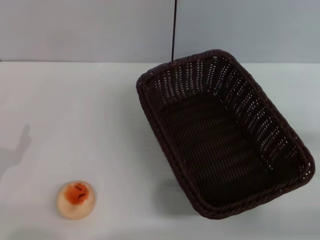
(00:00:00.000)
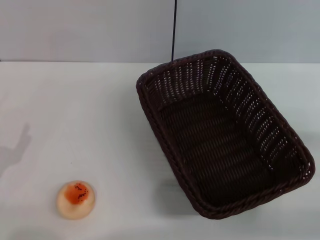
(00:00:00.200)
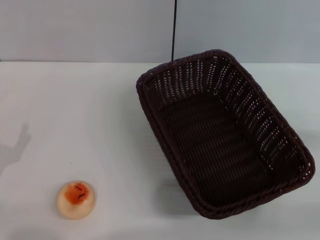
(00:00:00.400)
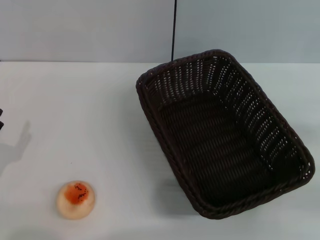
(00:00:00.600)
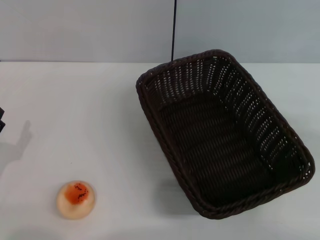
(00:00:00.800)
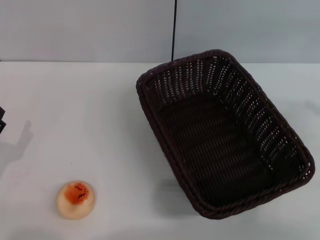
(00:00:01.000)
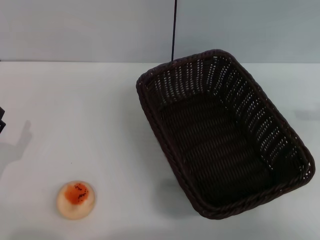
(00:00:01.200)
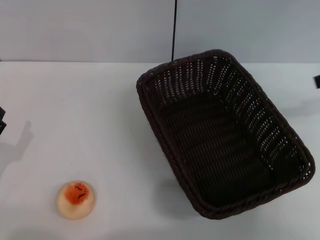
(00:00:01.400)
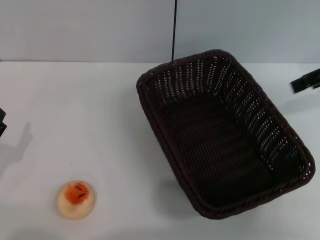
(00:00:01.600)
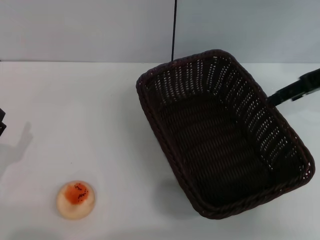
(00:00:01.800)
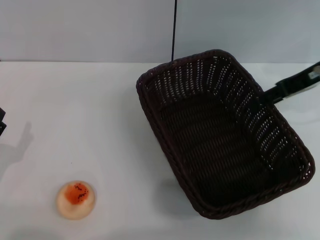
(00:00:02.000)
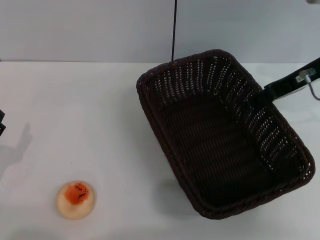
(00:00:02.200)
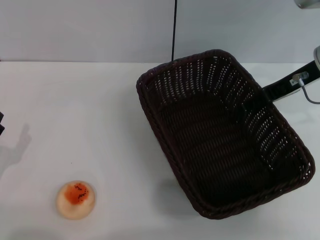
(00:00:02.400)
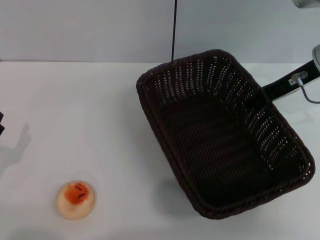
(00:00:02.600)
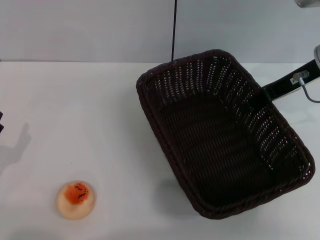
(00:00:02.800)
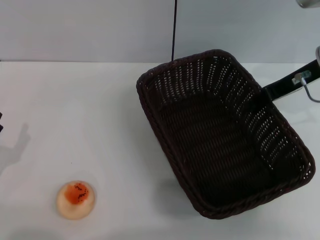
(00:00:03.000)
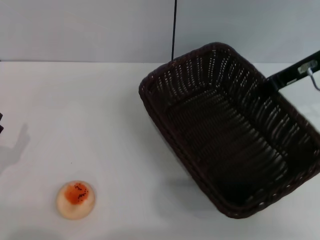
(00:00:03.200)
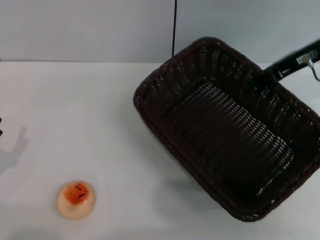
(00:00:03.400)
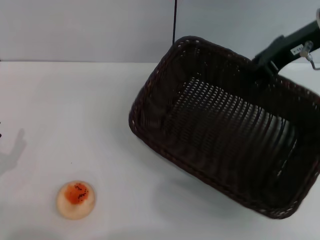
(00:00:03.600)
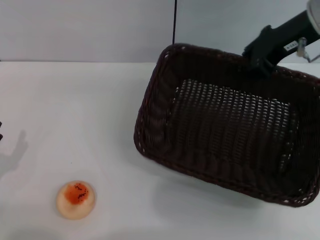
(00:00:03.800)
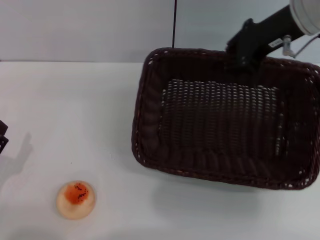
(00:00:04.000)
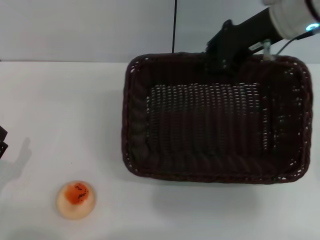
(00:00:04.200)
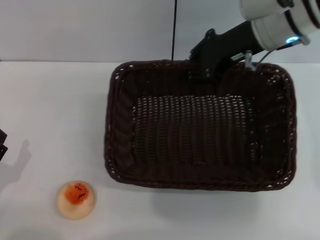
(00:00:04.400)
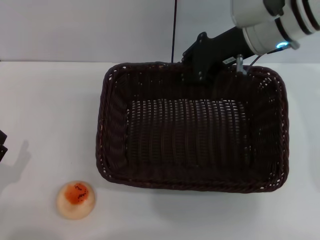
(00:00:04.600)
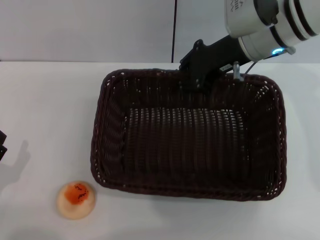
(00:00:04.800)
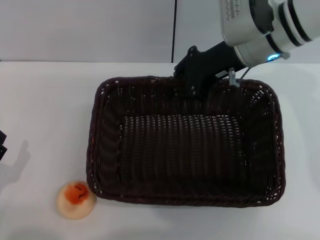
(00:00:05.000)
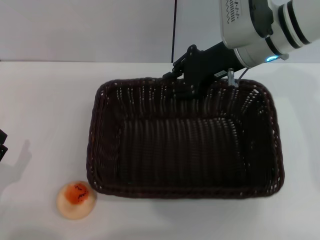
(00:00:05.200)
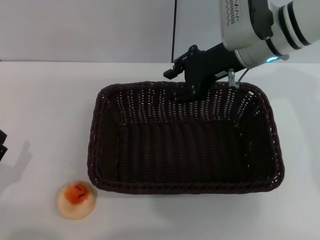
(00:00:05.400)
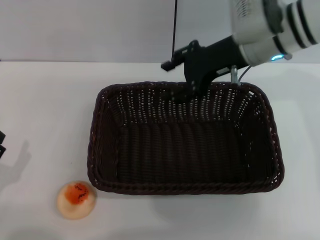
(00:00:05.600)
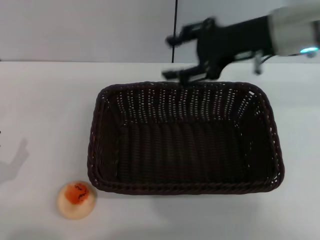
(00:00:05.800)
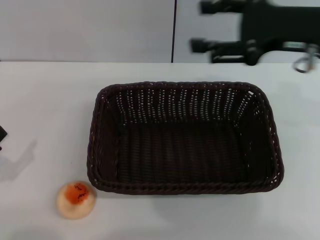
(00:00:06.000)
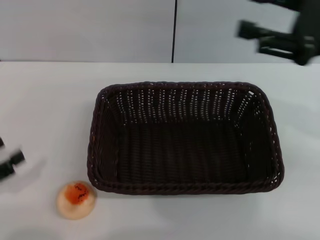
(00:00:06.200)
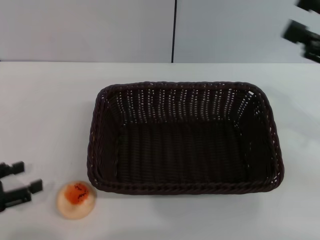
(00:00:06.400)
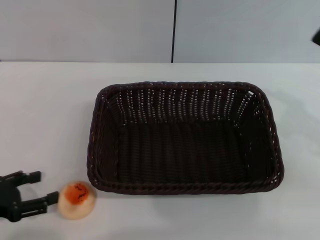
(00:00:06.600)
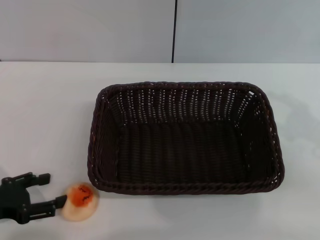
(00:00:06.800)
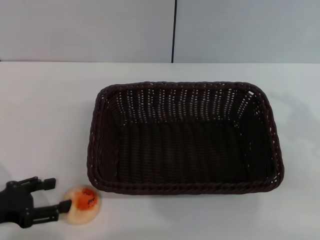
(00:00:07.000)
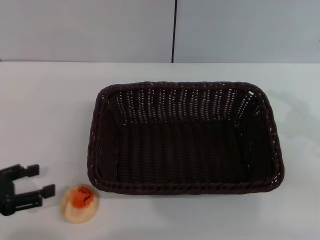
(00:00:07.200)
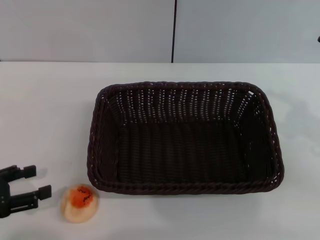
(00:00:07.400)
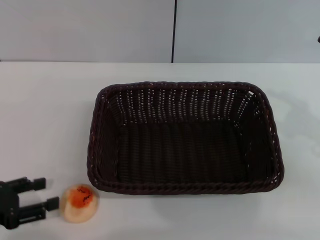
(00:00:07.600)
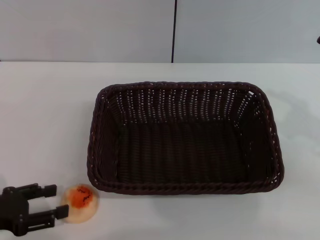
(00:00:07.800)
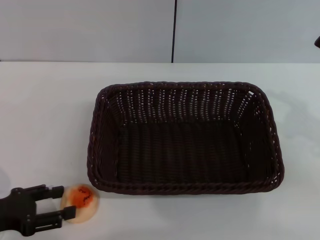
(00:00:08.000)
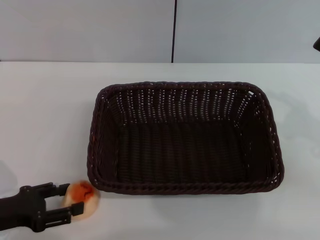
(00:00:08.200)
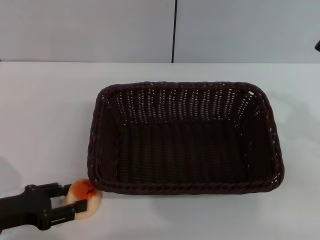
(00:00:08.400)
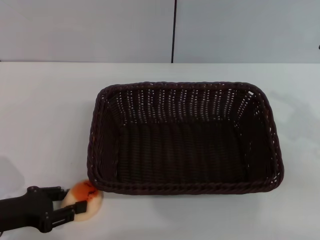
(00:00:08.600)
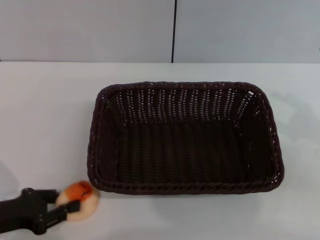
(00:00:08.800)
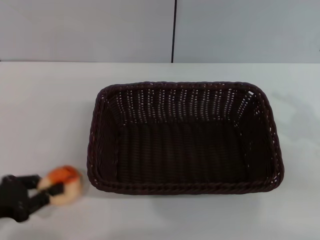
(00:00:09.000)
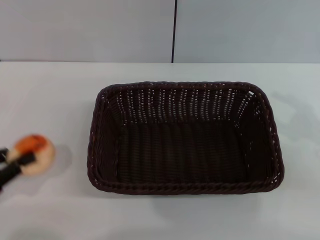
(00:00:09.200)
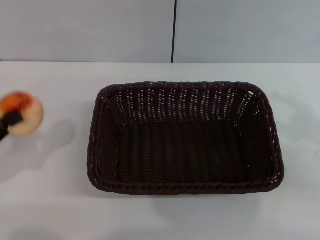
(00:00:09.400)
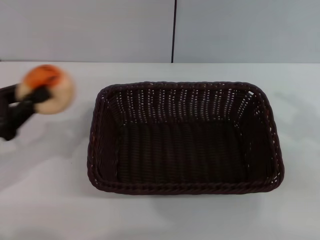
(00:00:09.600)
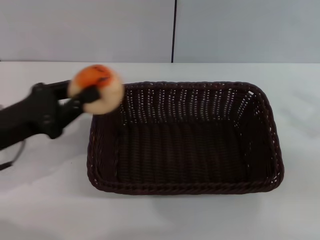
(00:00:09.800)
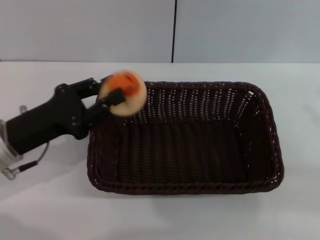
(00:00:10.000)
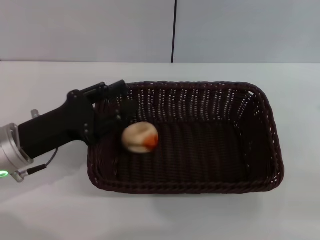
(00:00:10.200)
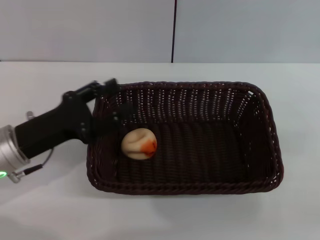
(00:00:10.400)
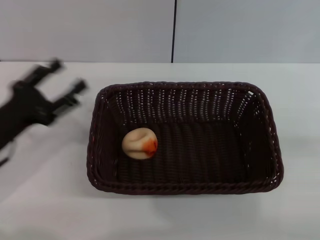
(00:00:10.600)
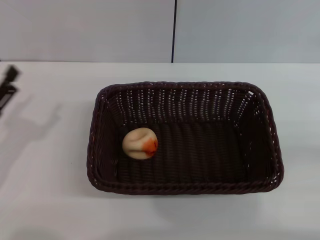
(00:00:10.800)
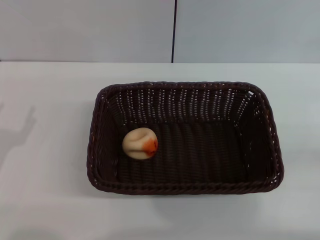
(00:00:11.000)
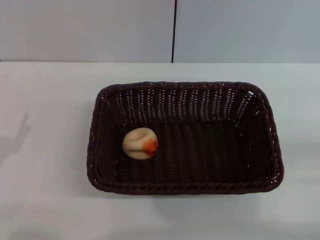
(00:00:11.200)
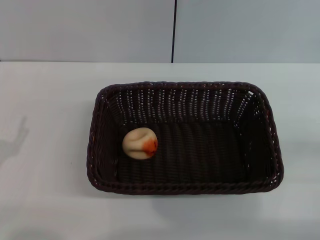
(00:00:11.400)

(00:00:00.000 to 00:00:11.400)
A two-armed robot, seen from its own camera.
Step, 00:00:00.000 - 00:00:05.600: Move the basket to the center of view with the right gripper.
Step, 00:00:05.800 - 00:00:09.000: Pick up the egg yolk pastry with the left gripper.
Step, 00:00:09.200 - 00:00:10.200: Place the egg yolk pastry into the basket with the left gripper.
00:00:00.000 - 00:00:01.400: The right gripper goes roughly 25 cm upward and forward.
00:00:01.400 - 00:00:02.800: The right gripper shifts about 15 cm to the left and downward.
00:00:02.800 - 00:00:04.200: The right gripper goes approximately 5 cm to the left, and closes up.
00:00:04.200 - 00:00:05.600: The right gripper opens.
00:00:05.600 - 00:00:07.200: The right gripper heads to the right and backward, covering some 25 cm, and opens its fingers. Meanwhile the left gripper shifts roughly 10 cm upward and forward.
00:00:07.200 - 00:00:08.600: The left gripper shifts by about 5 cm.
00:00:08.600 - 00:00:10.000: The right gripper shifts by approximately 5 cm; the left gripper moves forward, to the right and upward, about 10 cm, and closes up.
00:00:10.000 - 00:00:11.400: The left gripper shifts about 15 cm backward, to the left and downward, and opens its fingers. Meanwhile the right gripper travels downward by roughly 10 cm.

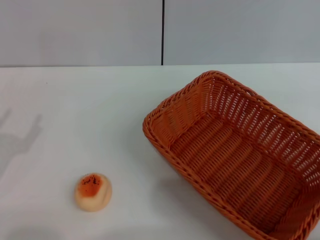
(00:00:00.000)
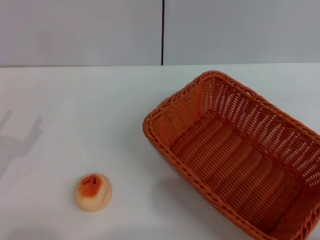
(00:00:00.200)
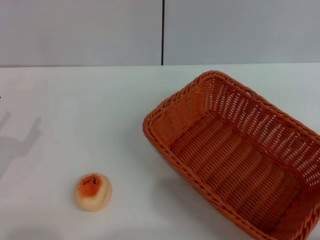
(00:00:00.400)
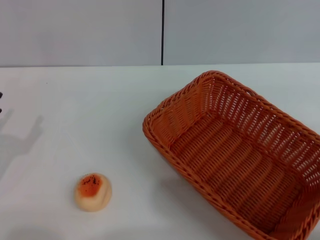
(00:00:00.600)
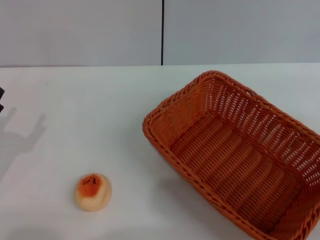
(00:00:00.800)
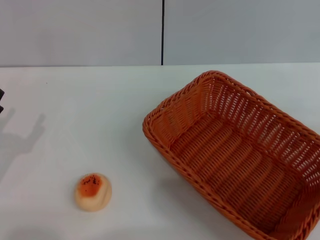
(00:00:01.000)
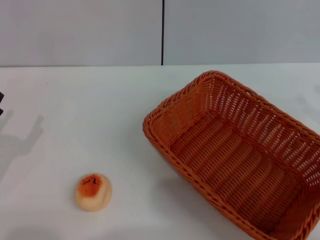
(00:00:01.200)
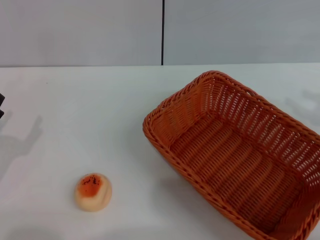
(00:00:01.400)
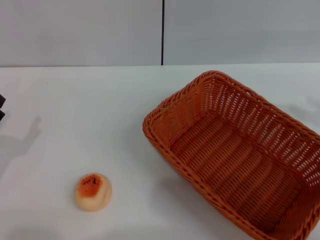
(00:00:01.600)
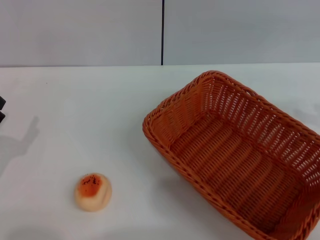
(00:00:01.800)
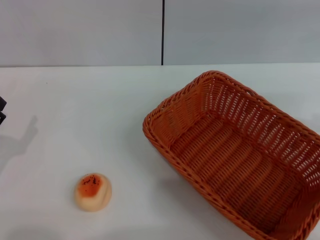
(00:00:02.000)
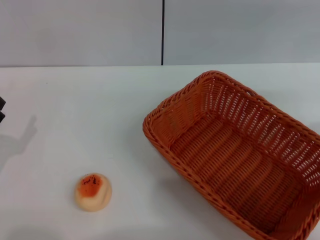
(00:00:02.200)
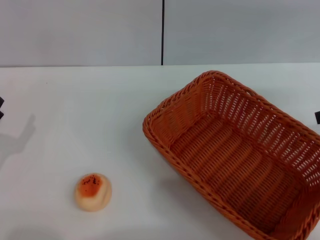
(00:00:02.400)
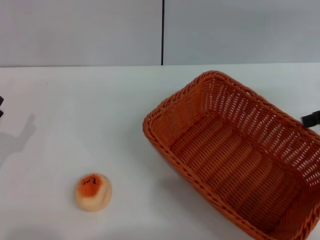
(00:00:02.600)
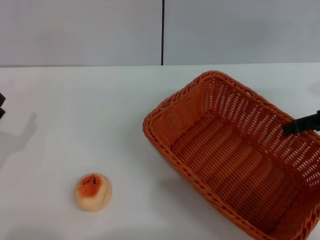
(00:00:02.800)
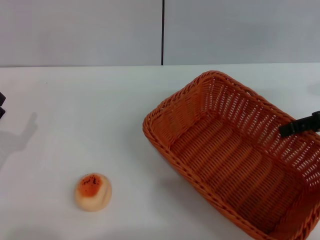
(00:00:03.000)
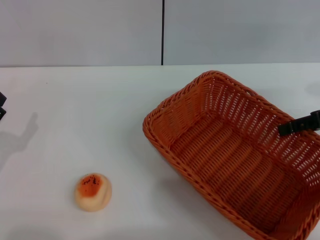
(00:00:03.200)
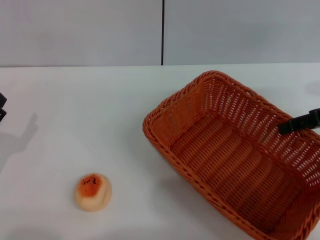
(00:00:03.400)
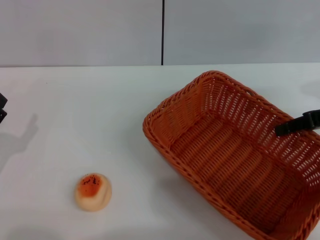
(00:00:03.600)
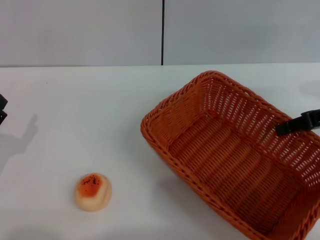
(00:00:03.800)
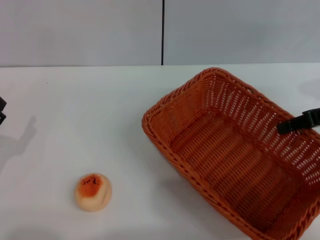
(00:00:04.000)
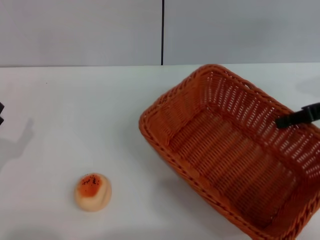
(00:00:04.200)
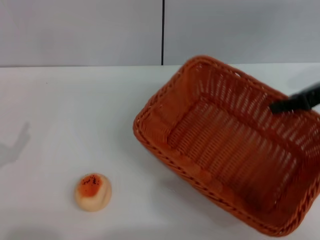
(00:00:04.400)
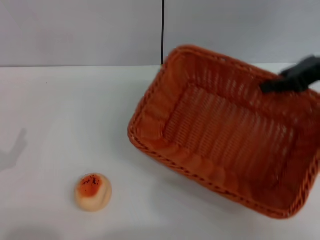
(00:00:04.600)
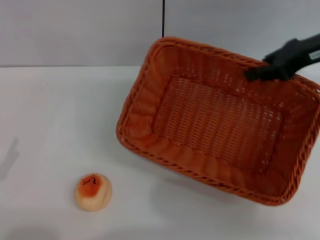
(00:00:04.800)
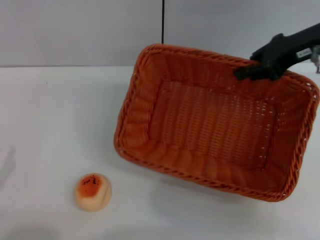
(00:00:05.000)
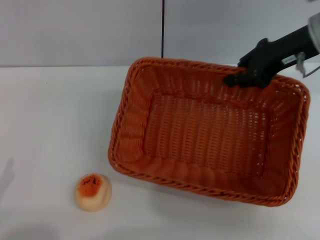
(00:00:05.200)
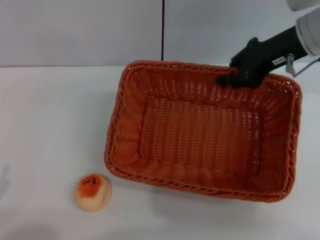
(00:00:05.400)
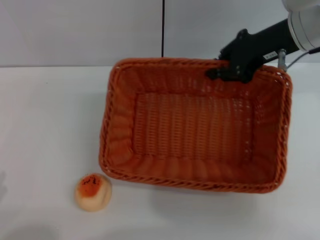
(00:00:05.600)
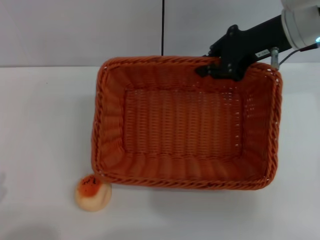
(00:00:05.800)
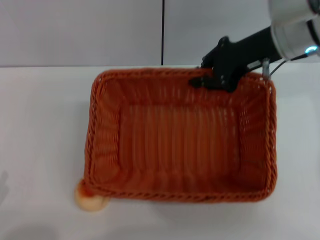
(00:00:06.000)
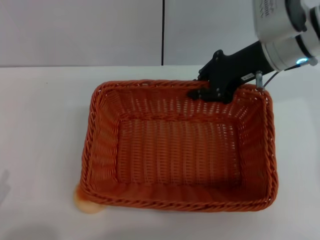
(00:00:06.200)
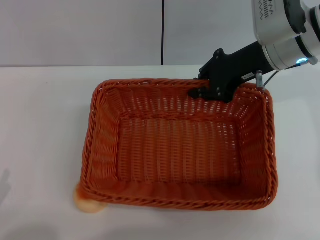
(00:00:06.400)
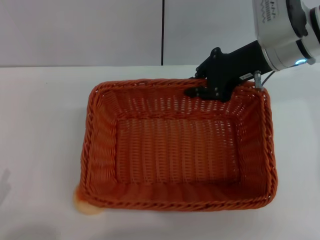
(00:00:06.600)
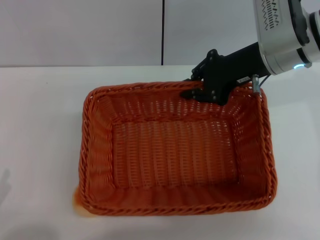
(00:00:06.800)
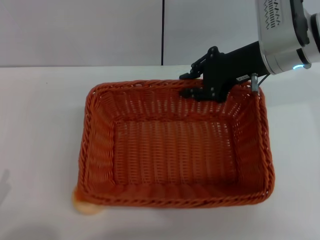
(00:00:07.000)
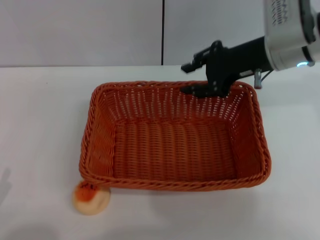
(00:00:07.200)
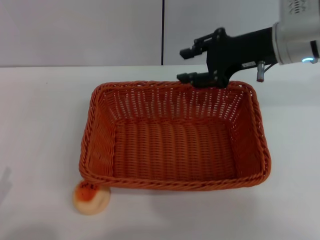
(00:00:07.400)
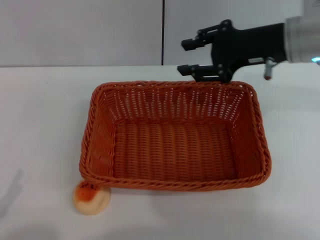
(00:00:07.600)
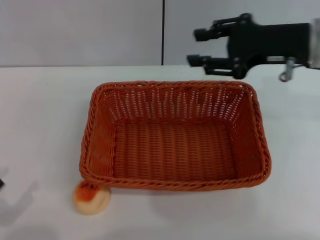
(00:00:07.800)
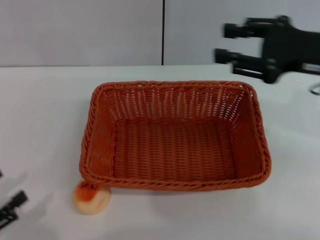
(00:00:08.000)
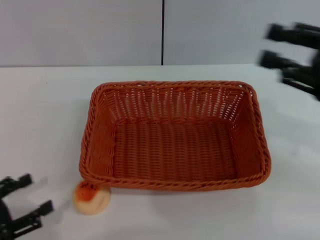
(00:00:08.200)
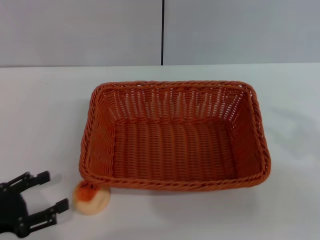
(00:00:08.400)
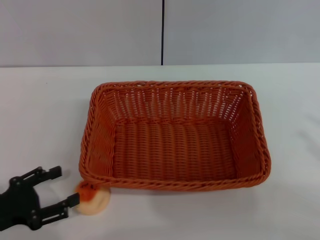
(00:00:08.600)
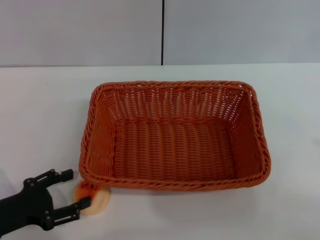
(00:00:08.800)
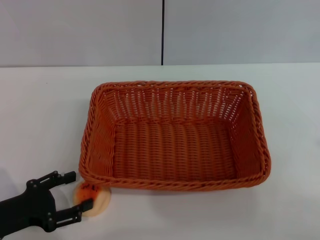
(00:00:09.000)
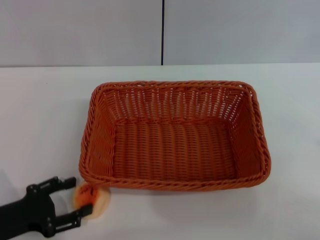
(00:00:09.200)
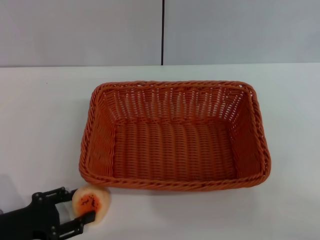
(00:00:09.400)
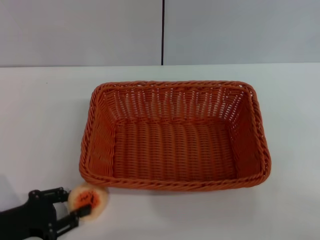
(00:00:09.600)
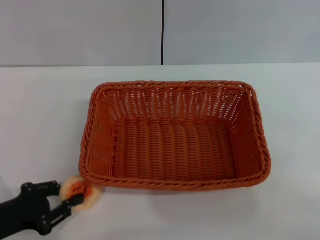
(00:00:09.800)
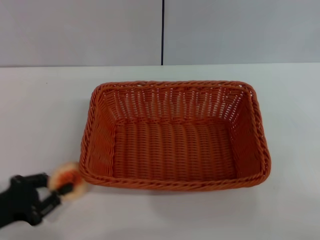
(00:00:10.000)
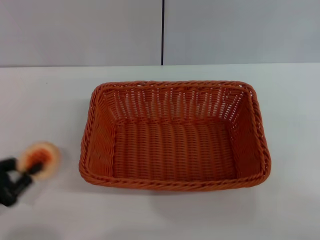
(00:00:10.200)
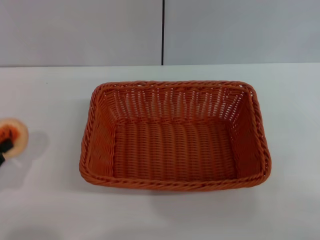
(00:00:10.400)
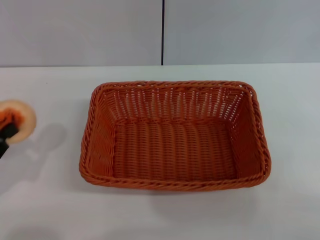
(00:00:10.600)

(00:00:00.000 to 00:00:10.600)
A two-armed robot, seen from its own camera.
Step, 00:00:00.000 - 00:00:07.800: Move the basket to the center of view with the right gripper.
Step, 00:00:08.000 - 00:00:10.000: Pick up the egg yolk pastry with the left gripper.
00:00:01.600 - 00:00:03.000: The right gripper heads to the left and forward, covering some 10 cm, and reaches roughly 5 cm upward, then returns.
00:00:03.000 - 00:00:04.600: The right gripper changes place by about 10 cm, and closes its fingers.
00:00:04.600 - 00:00:06.000: The left gripper is displaced backward by about 10 cm. Meanwhile the right gripper shifts approximately 10 cm to the left.
00:00:06.000 - 00:00:07.600: The right gripper opens up.
00:00:07.600 - 00:00:09.000: The left gripper is displaced forward by roughly 10 cm. Meanwhile the right gripper goes approximately 30 cm backward and to the right.
00:00:09.000 - 00:00:10.600: The left gripper shifts by about 5 cm, and closes up.
